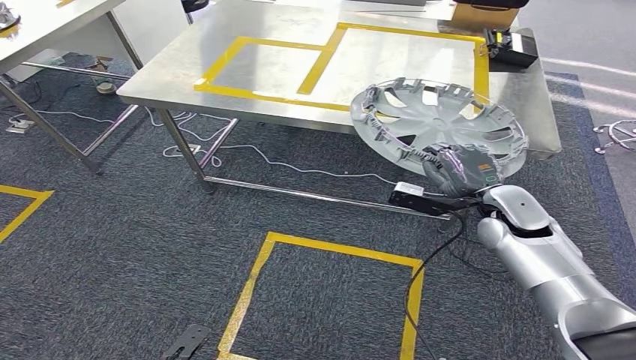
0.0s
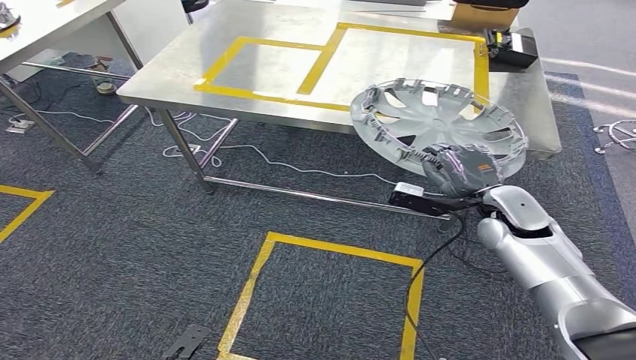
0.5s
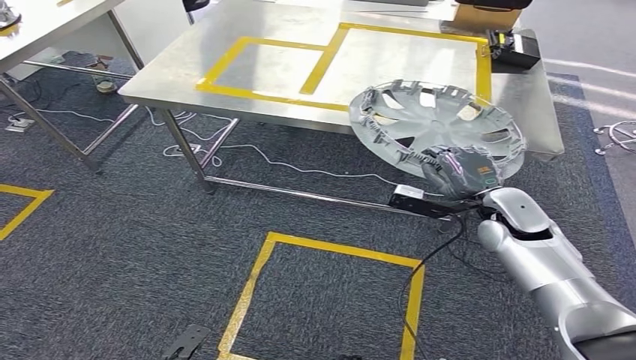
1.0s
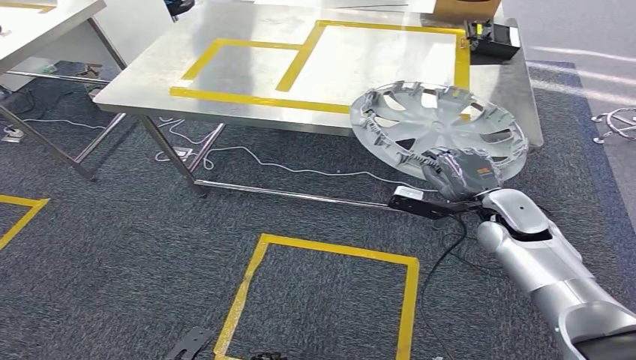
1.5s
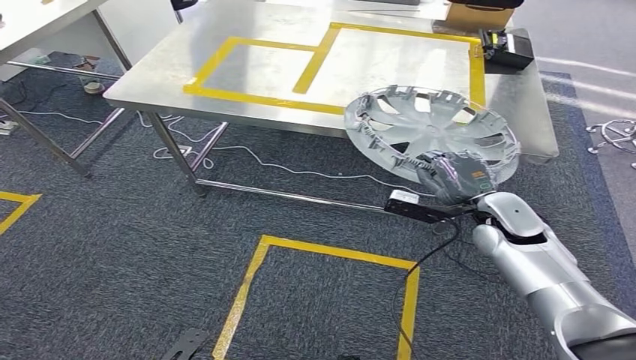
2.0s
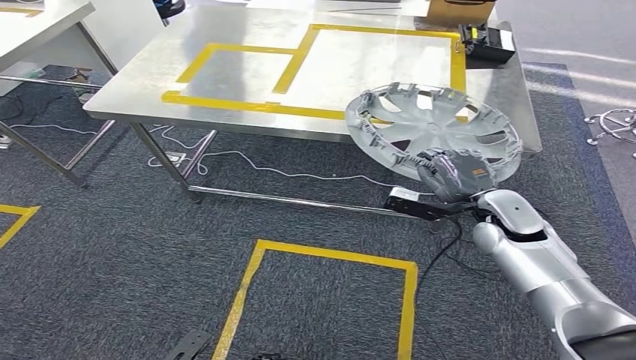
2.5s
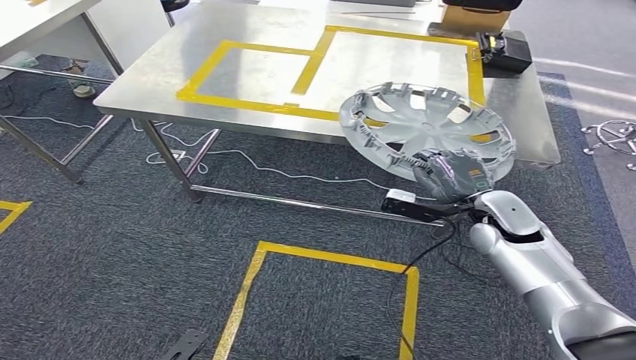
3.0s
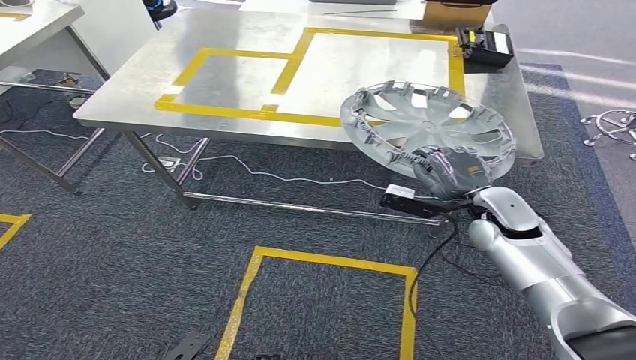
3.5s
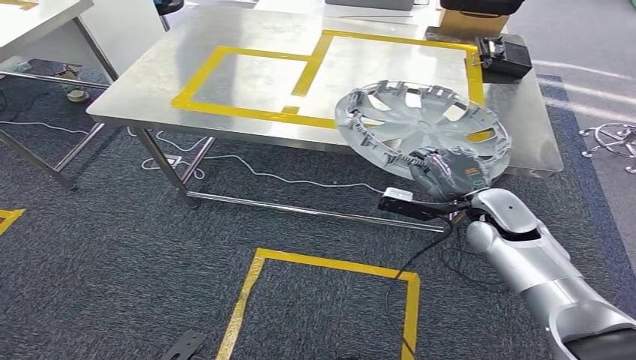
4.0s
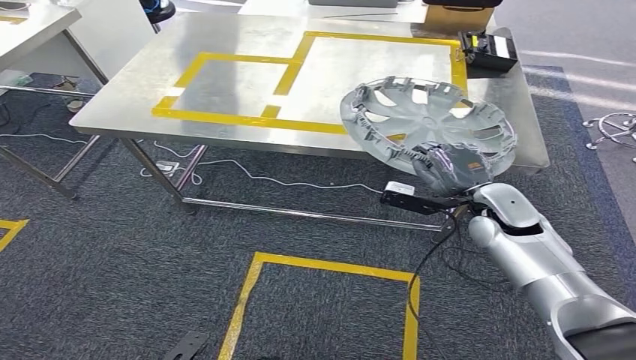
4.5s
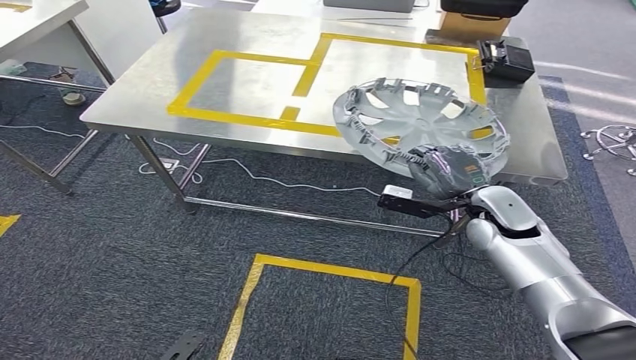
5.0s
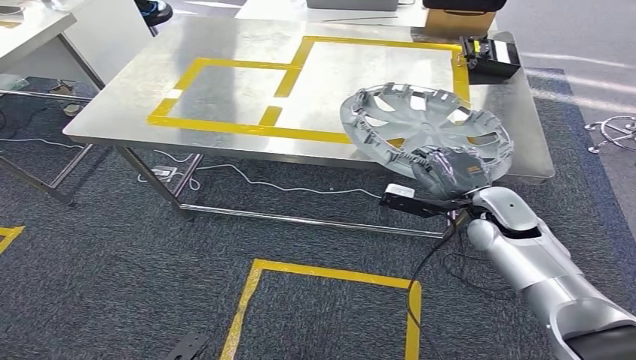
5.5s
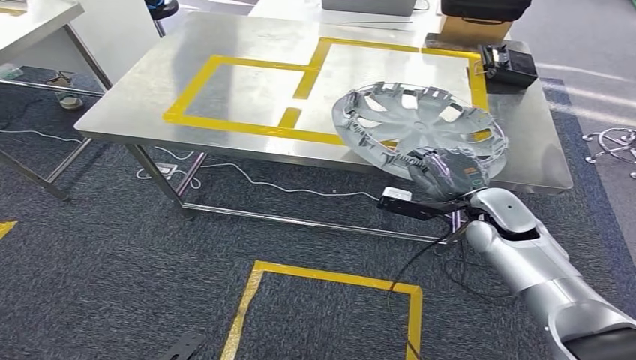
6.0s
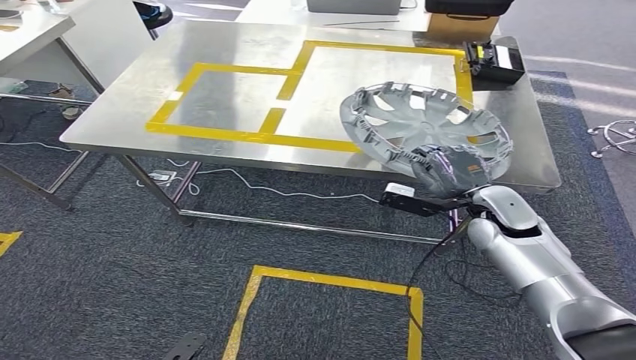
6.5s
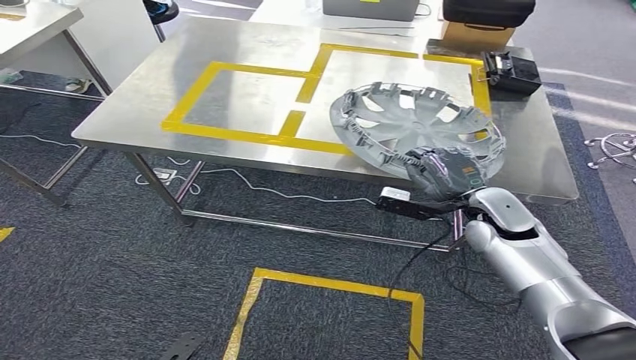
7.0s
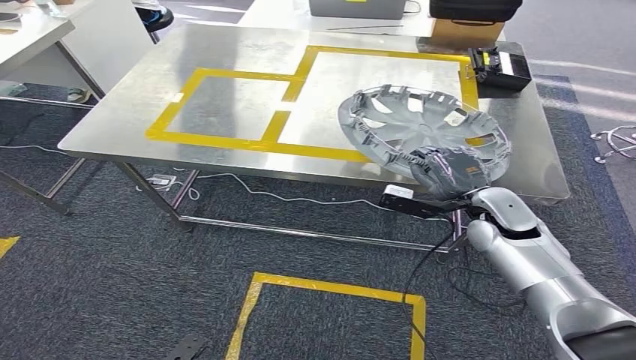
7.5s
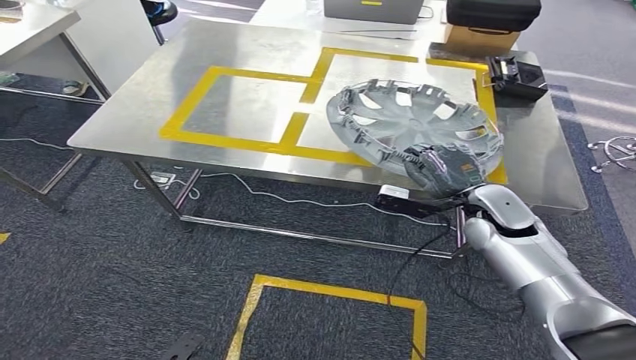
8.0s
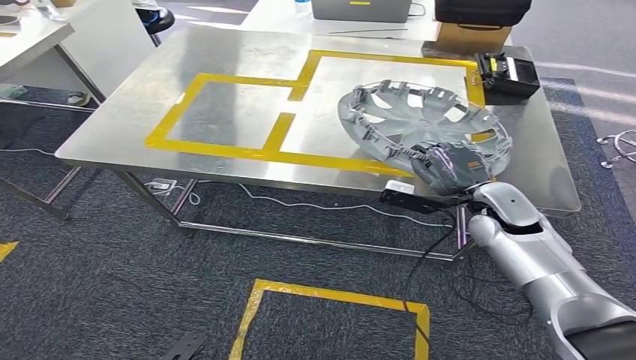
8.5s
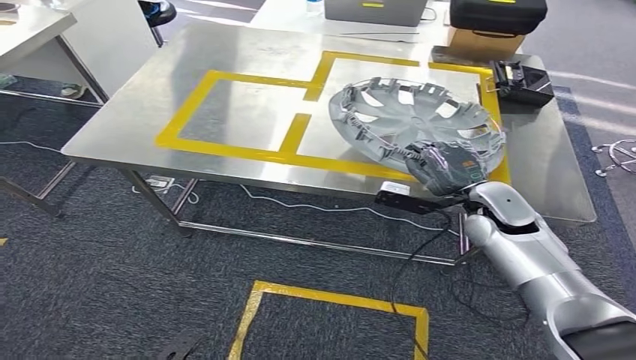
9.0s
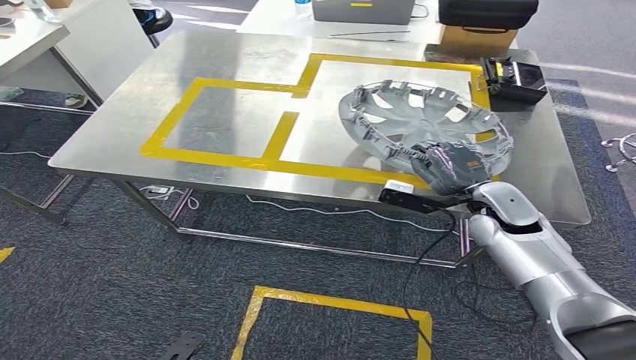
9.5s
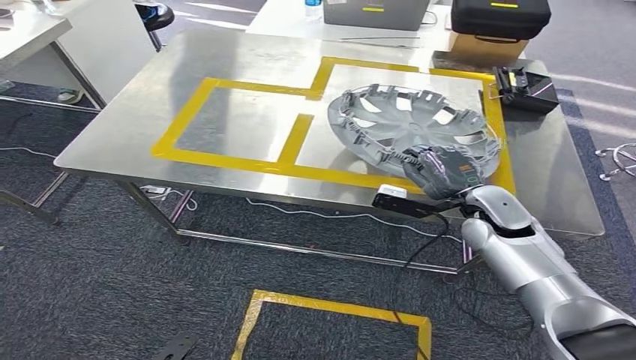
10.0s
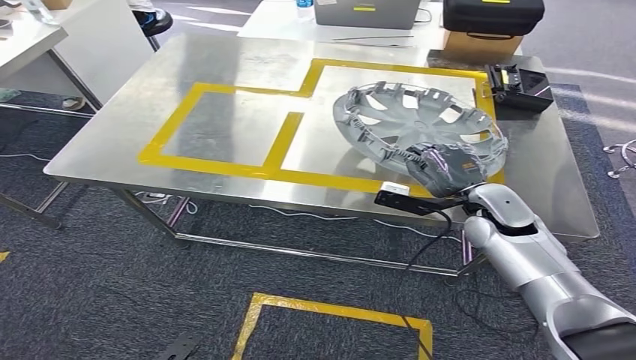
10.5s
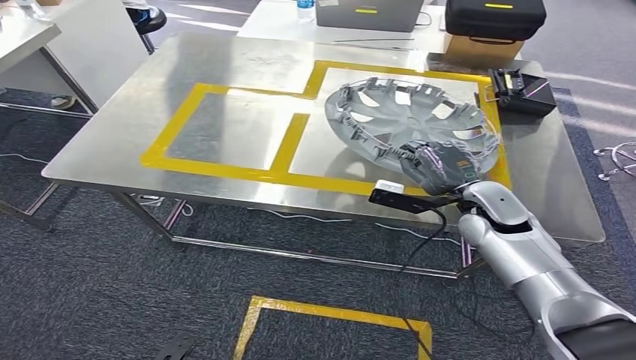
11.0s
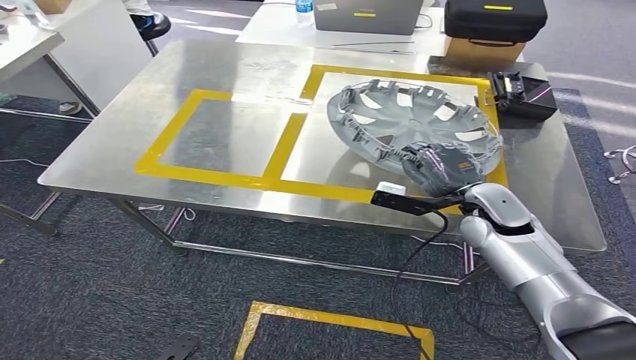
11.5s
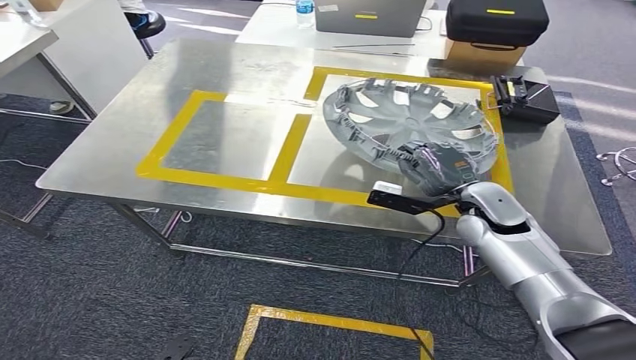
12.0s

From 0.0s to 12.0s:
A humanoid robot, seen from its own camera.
From 4.0s to 6.0s: The two hands keep their place.

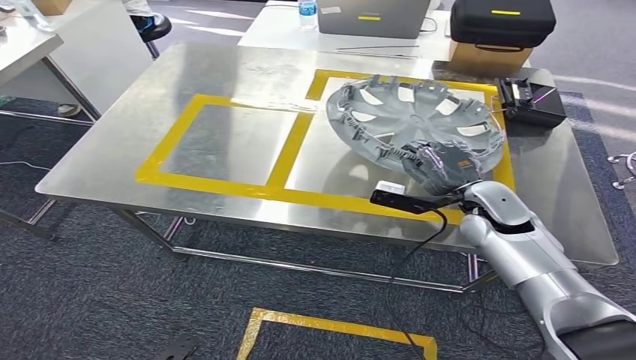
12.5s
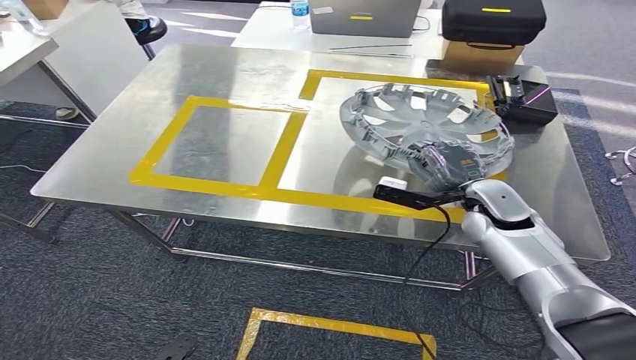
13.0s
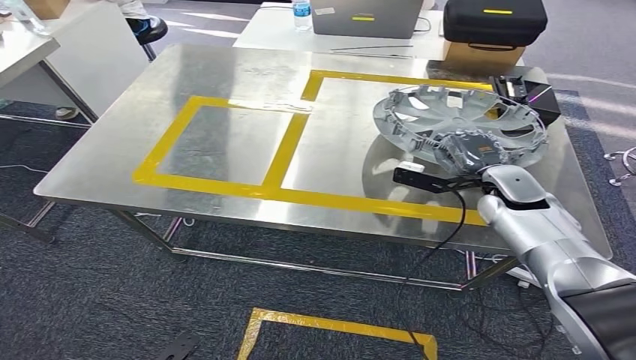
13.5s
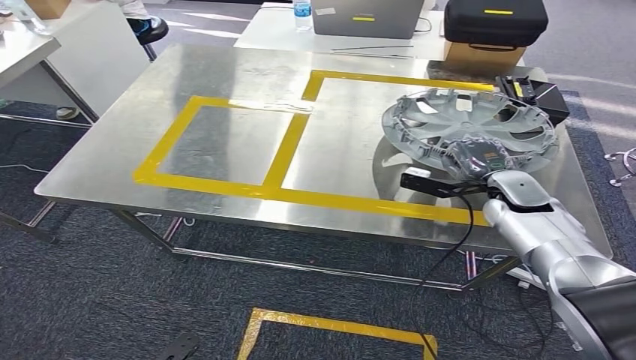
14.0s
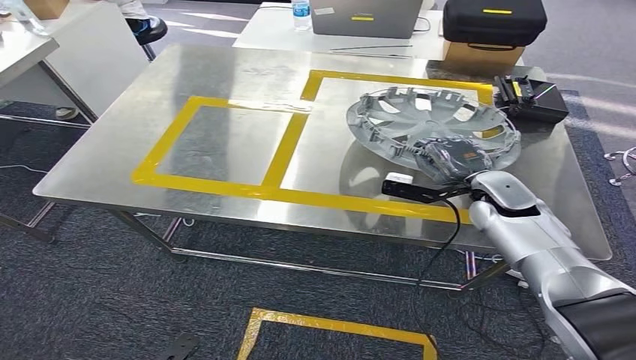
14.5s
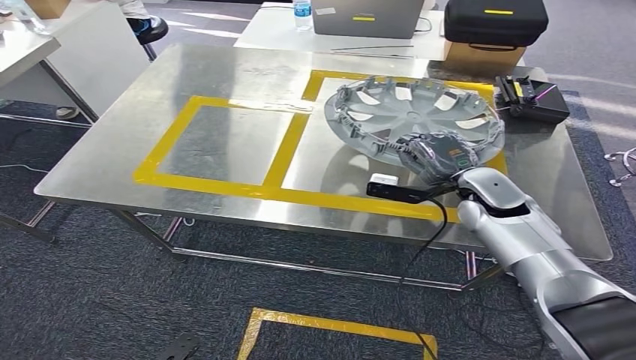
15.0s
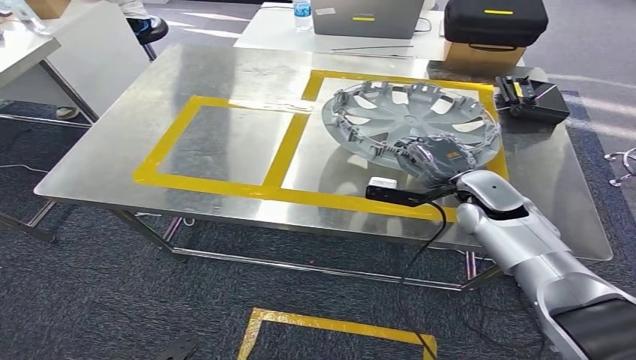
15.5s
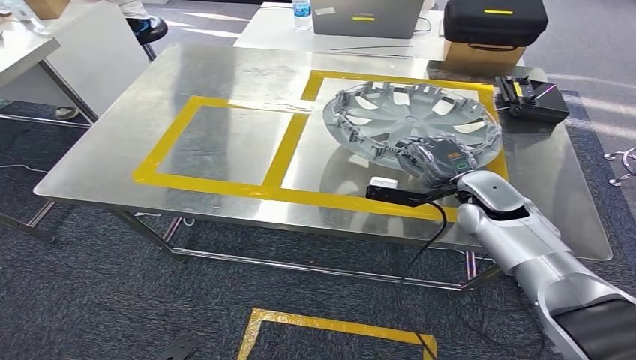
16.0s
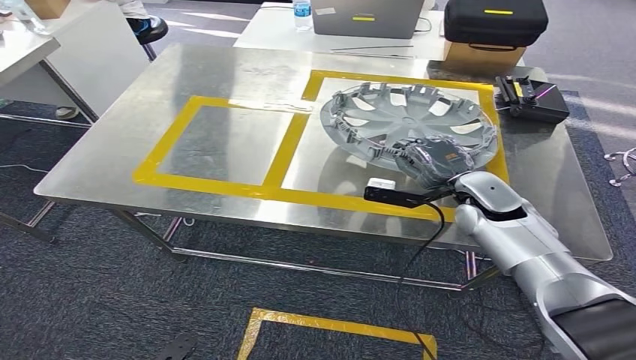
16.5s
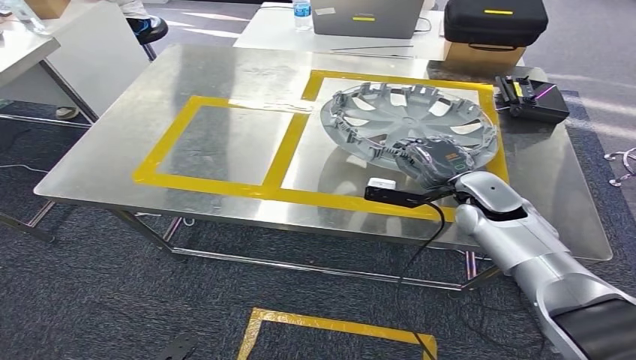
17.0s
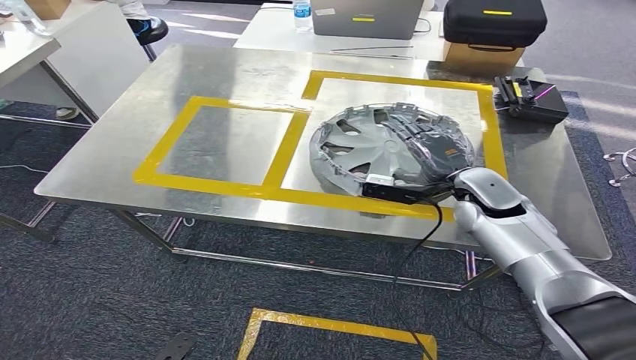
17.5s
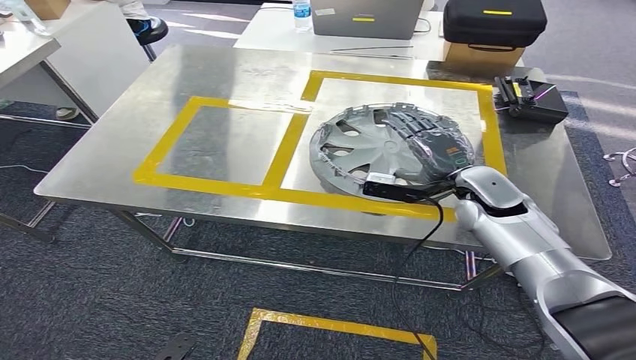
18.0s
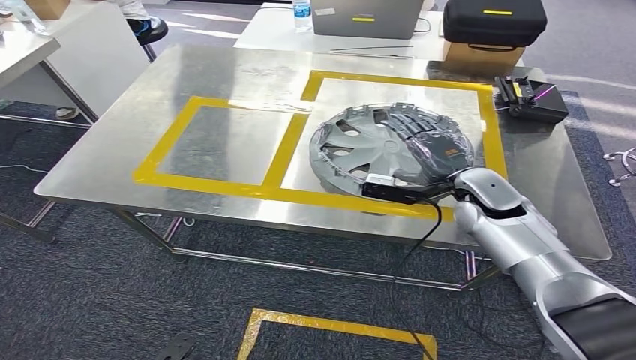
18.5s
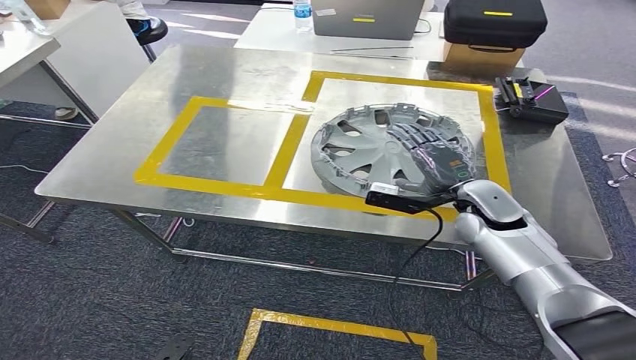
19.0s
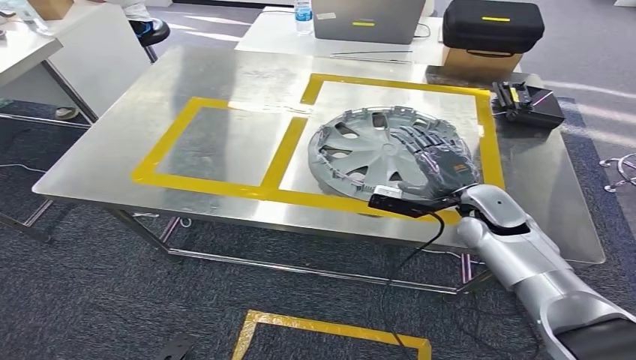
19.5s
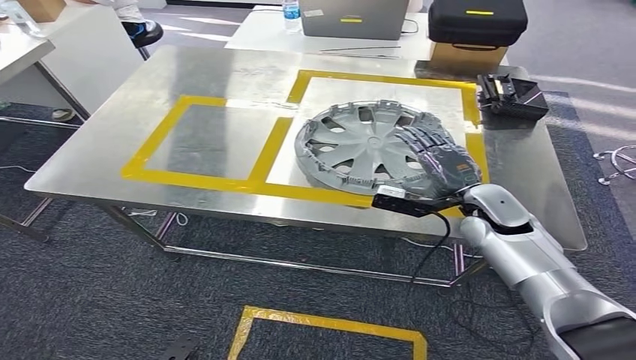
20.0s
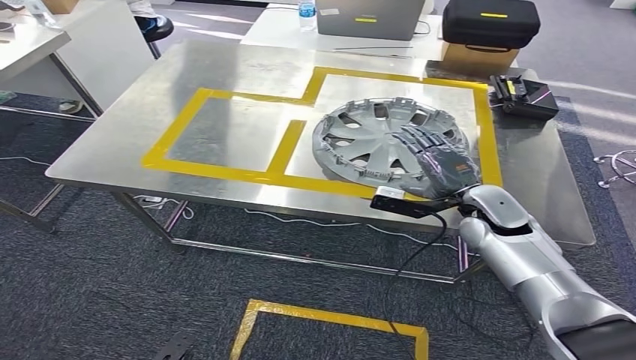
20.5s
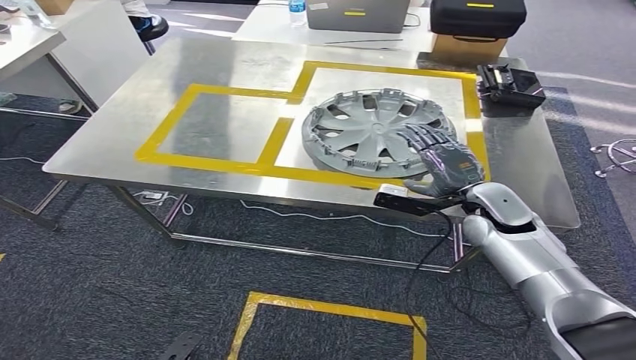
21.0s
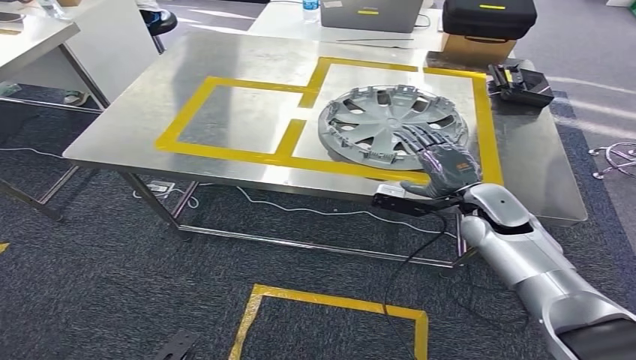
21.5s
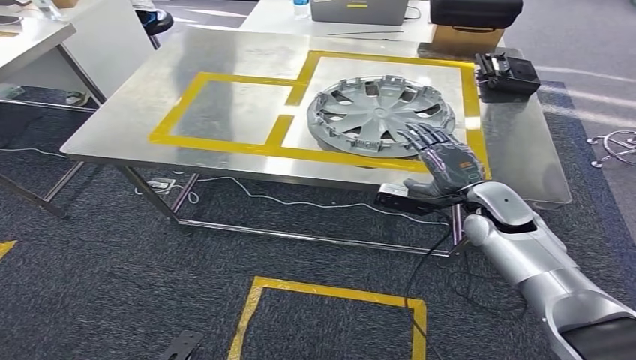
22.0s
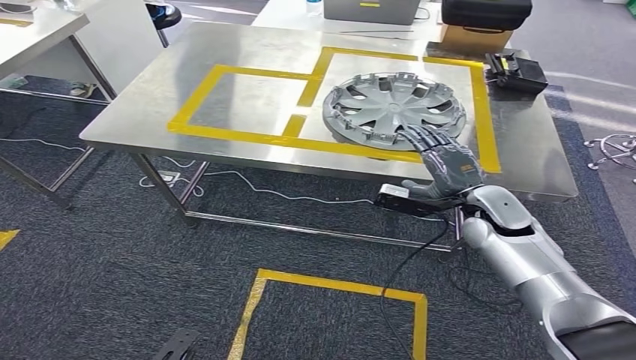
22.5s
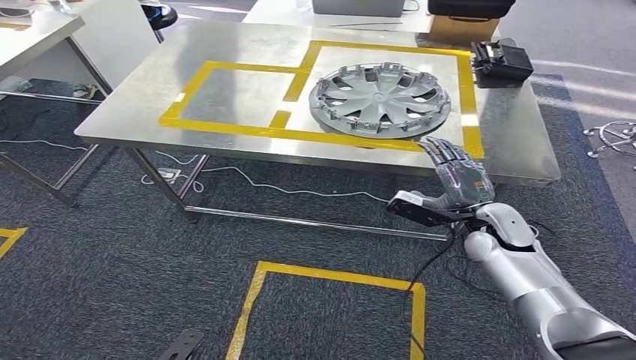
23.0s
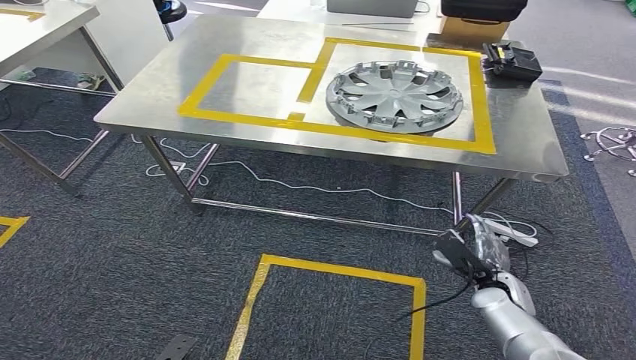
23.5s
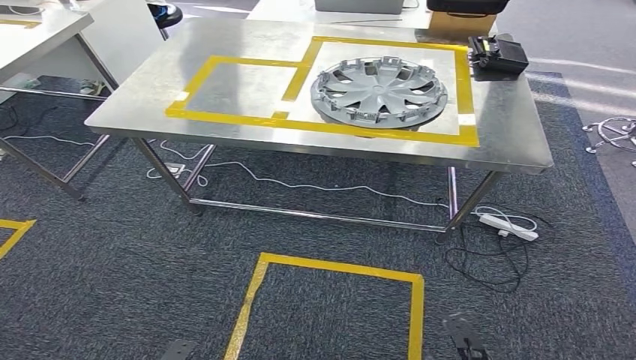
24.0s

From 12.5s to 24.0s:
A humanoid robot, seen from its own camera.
Step, from 13.0s to 17.0s: Place the gray part on the table with right gripper.
From 14.5s to 16.5s: There are only small adjustments of the hands.
From 16.5s to 18.5s: Both hands stay about where they are.
